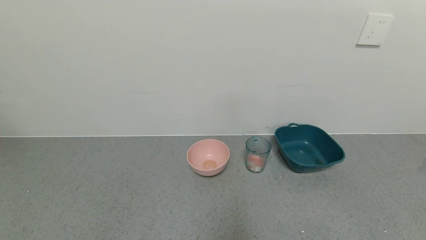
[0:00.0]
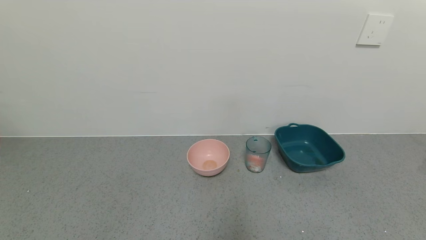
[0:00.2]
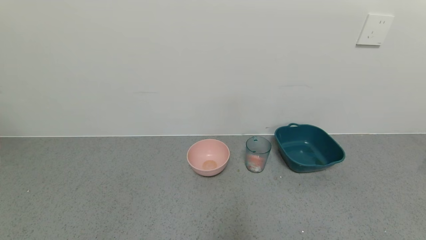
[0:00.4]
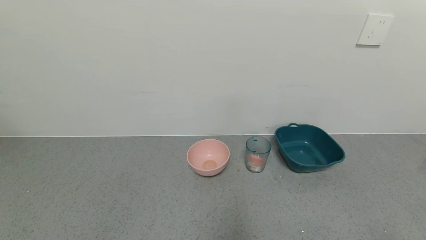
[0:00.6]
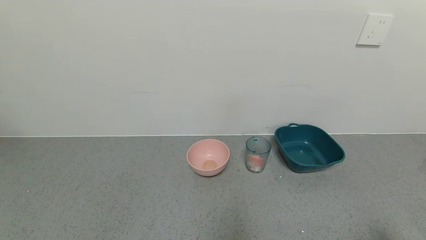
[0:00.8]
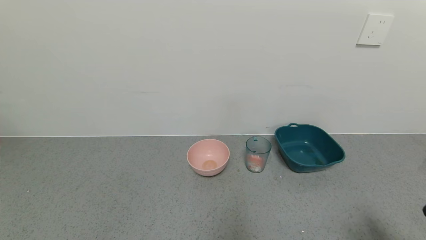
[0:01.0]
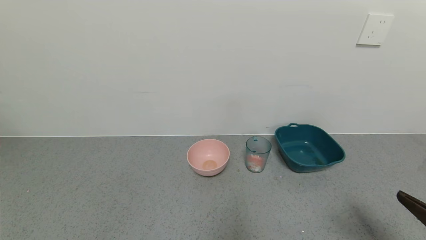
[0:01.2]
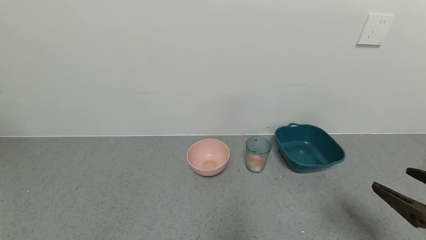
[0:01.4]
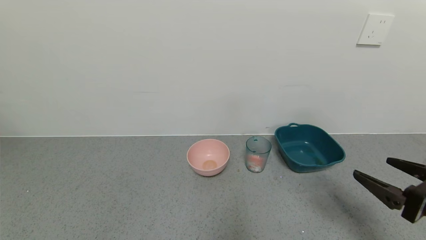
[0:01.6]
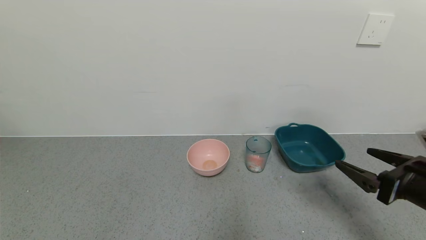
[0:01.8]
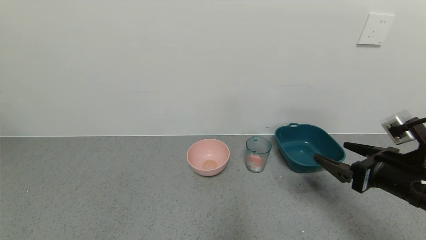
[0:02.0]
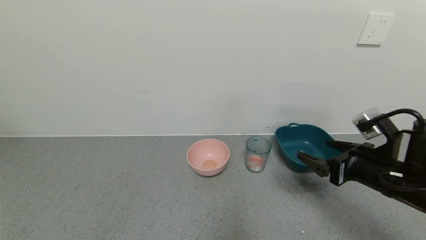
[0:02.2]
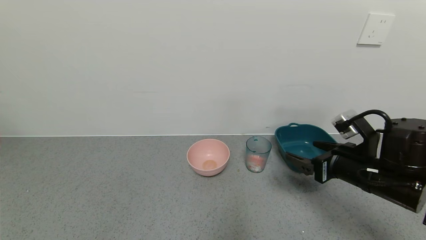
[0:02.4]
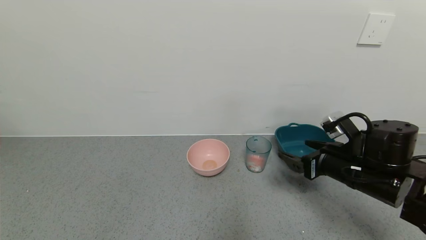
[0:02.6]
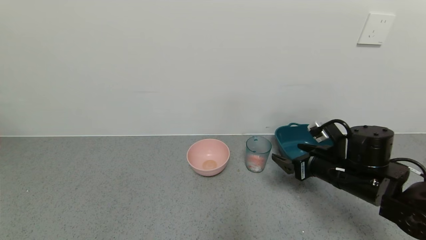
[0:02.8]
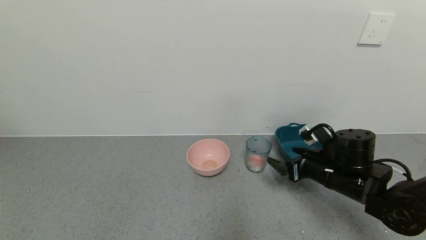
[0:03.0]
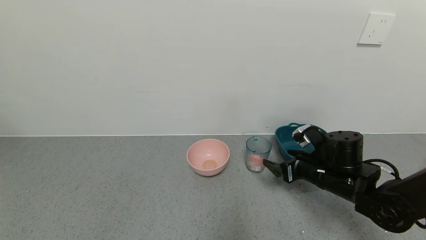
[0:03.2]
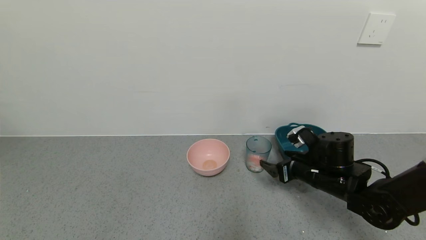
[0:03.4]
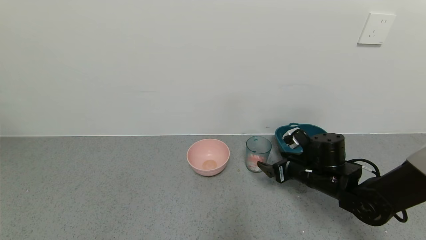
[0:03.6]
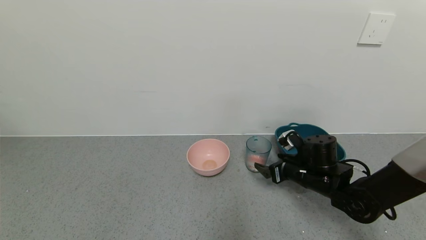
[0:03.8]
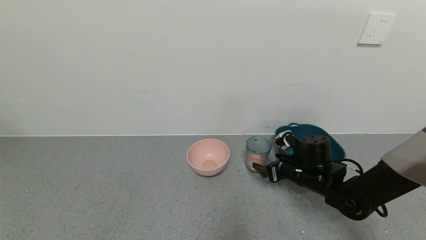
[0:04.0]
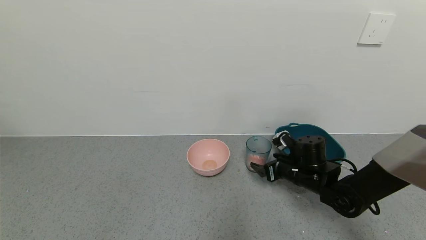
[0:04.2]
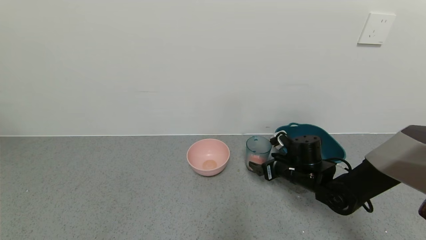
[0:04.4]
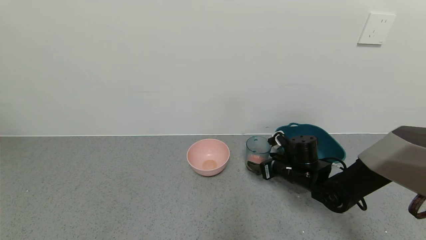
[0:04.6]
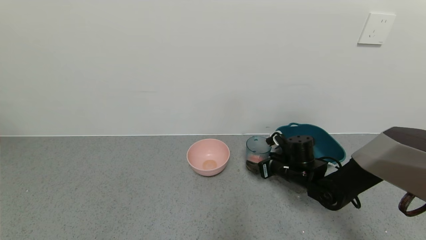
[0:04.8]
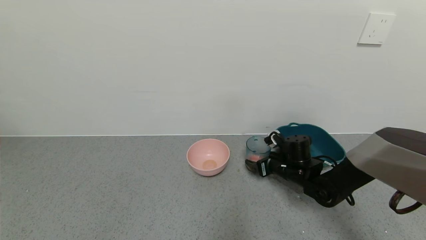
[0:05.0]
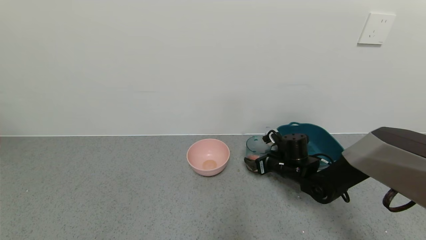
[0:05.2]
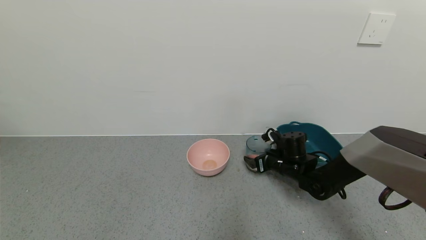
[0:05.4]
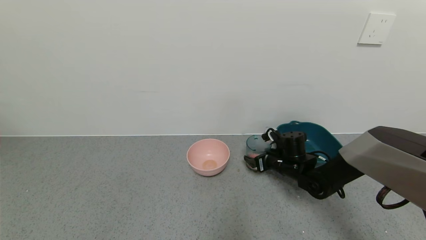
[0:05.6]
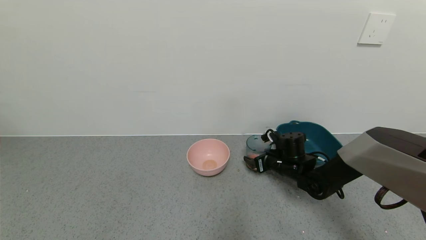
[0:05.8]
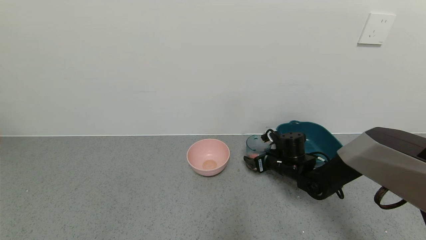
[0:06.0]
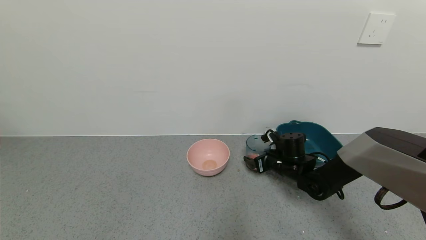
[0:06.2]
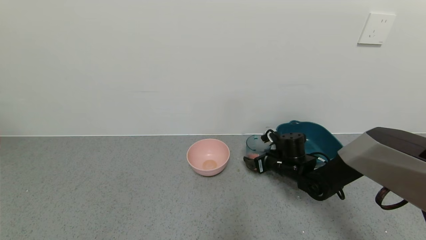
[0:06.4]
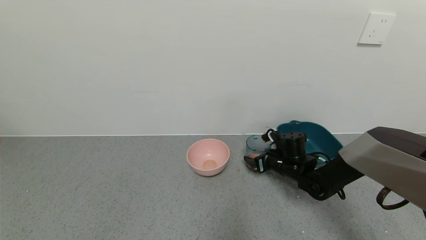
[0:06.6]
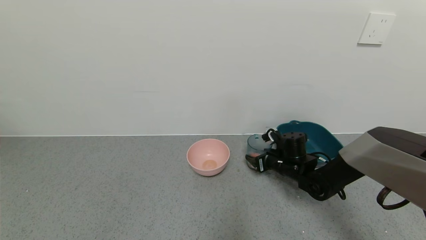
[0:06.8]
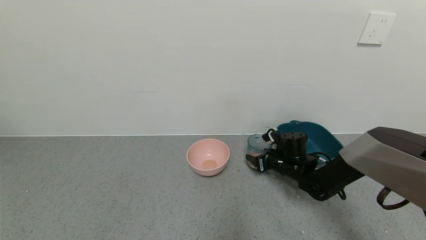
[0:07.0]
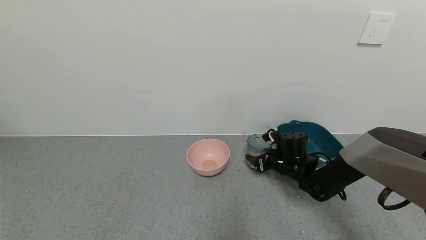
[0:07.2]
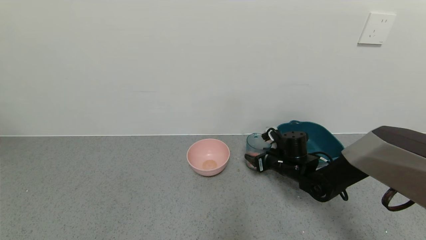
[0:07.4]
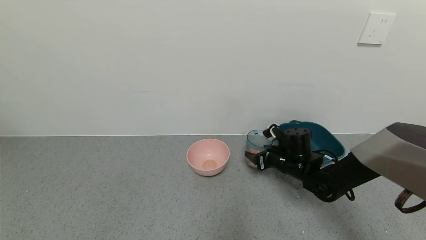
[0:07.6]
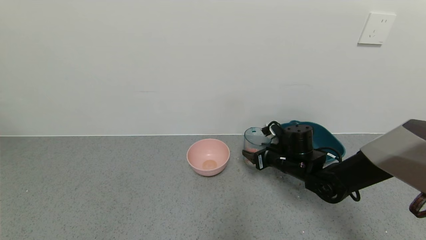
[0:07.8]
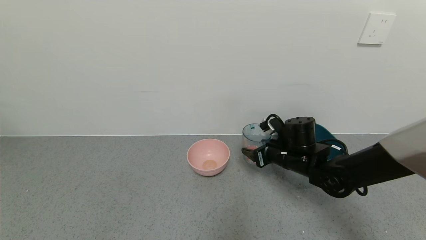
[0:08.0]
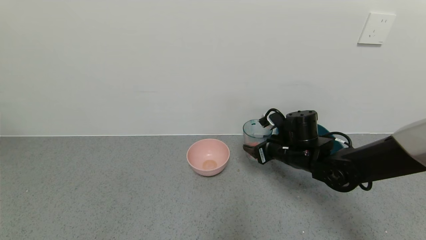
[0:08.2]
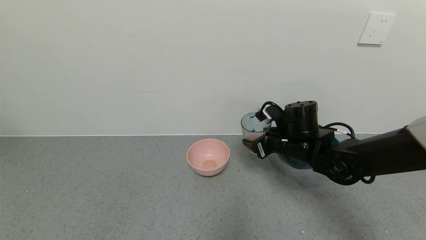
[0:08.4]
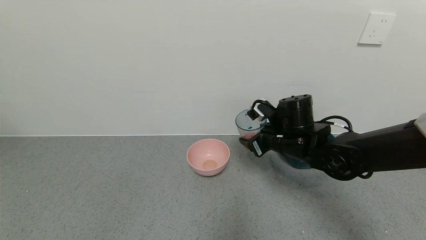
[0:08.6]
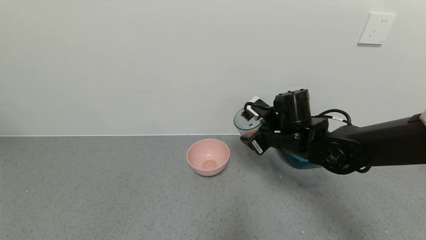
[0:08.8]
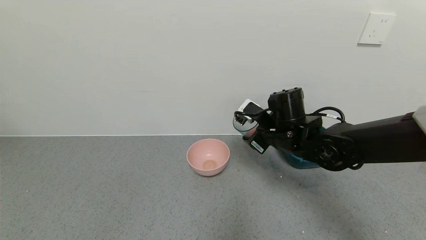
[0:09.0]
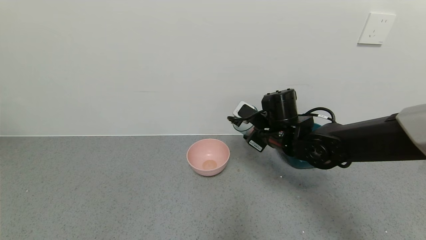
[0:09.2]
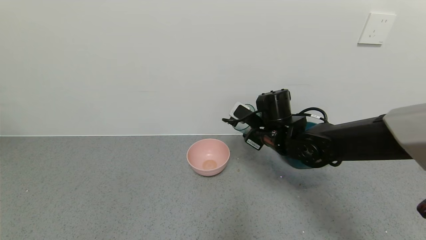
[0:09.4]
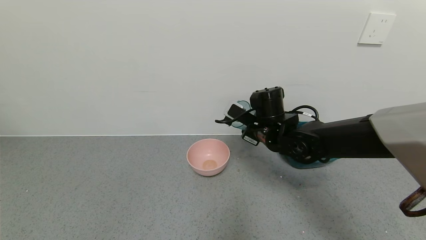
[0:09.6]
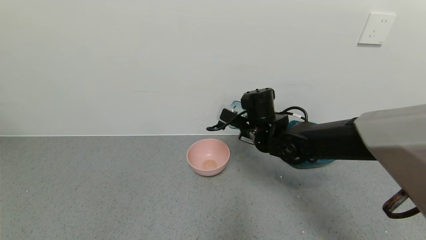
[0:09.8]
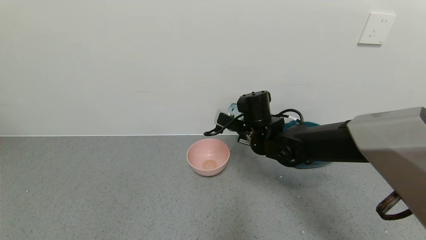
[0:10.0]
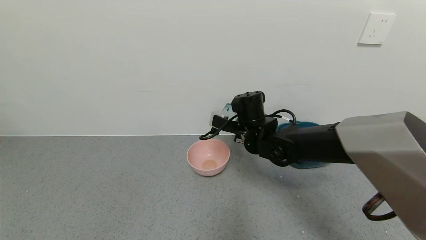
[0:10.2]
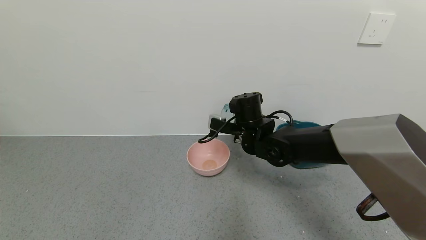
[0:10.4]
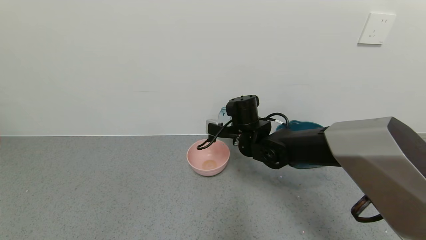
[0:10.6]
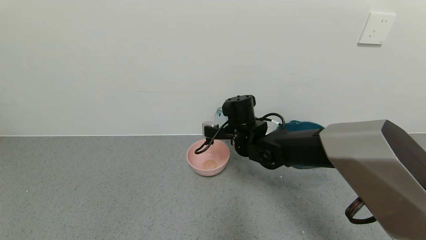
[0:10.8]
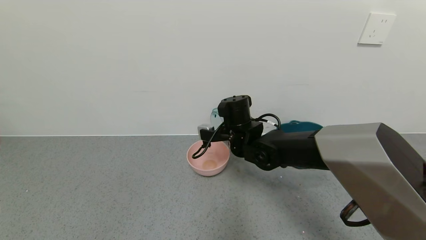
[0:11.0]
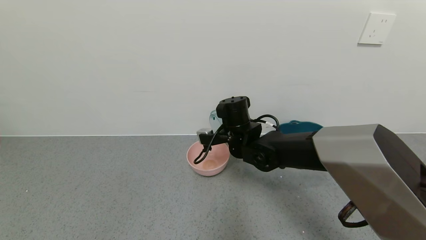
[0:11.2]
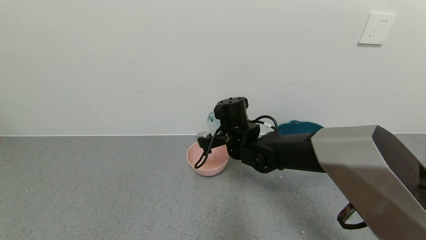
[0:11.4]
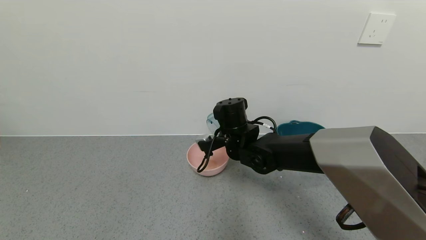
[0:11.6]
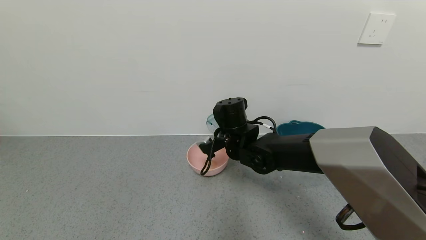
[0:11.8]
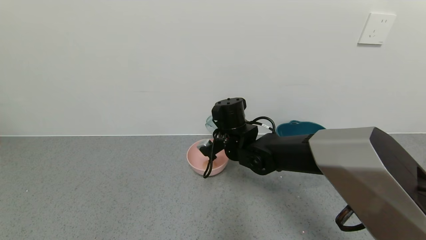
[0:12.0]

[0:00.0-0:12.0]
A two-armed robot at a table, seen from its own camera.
Task of the whole recording: use a gripper to pick up the cup and pour the solid into a bowl or tray.
Step, 0:00.0 to 0:06.8: Grasp the glass of shrimp with the right gripper.
0:00.0 to 0:01.6: The right gripper shifts roughly 20 cm forward and upward.
0:01.6 to 0:03.0: The right gripper is displaced forward, to the left and downward by approximately 20 cm.
0:03.0 to 0:04.4: The right gripper travels forward and downward by roughly 10 cm.
0:04.4 to 0:06.0: The right gripper moves roughly 5 cm.
0:06.0 to 0:07.6: The right gripper closes up.
0:07.6 to 0:09.0: The right gripper travels upward by about 10 cm.
0:09.0 to 0:10.4: The right gripper goes approximately 5 cm to the left.

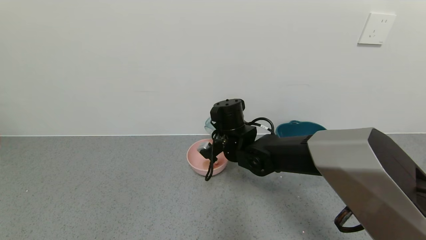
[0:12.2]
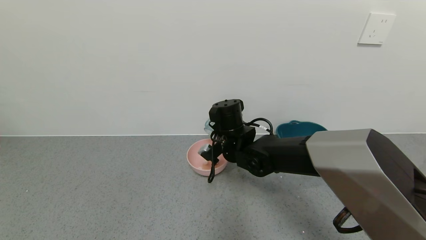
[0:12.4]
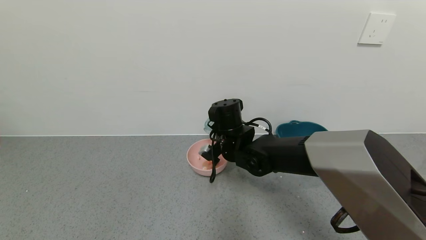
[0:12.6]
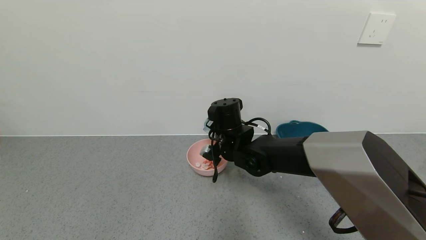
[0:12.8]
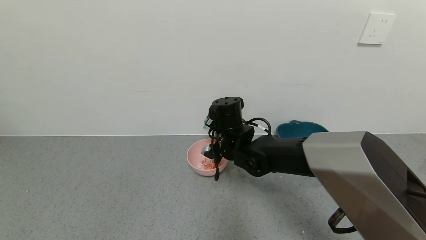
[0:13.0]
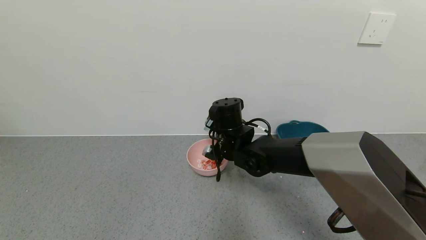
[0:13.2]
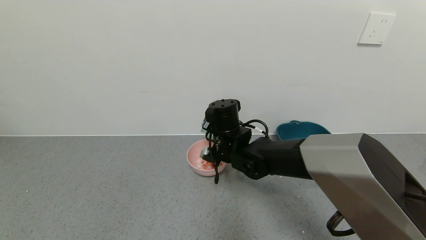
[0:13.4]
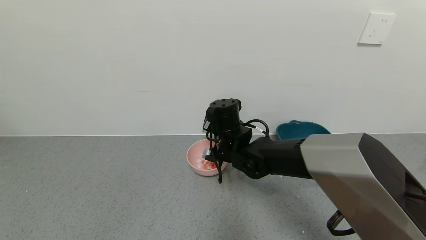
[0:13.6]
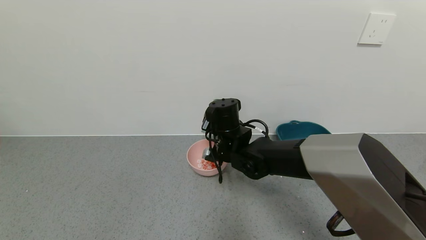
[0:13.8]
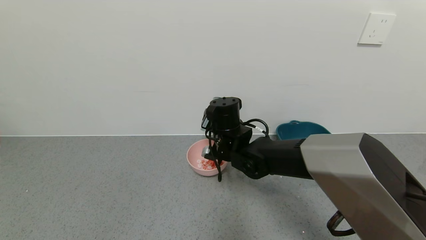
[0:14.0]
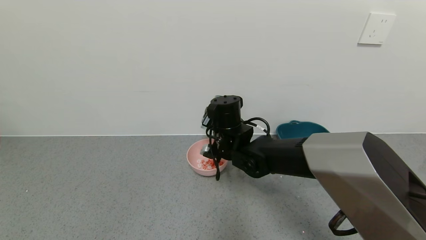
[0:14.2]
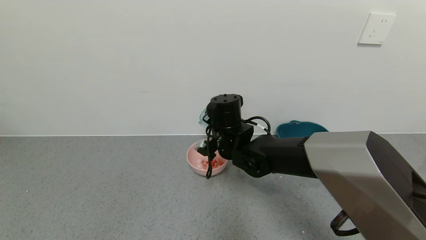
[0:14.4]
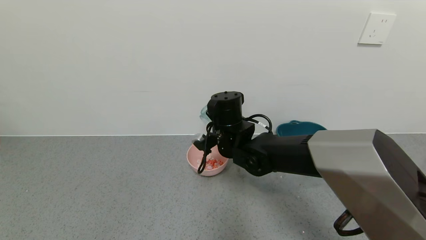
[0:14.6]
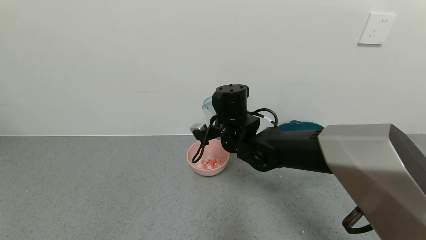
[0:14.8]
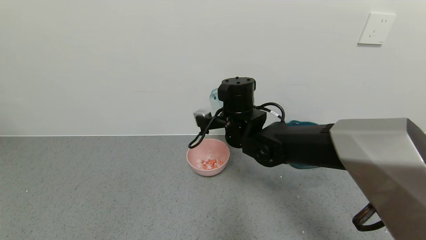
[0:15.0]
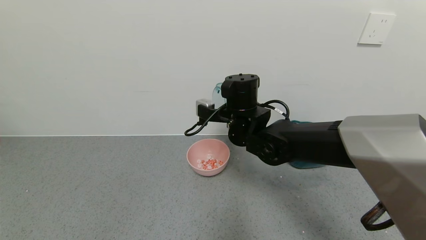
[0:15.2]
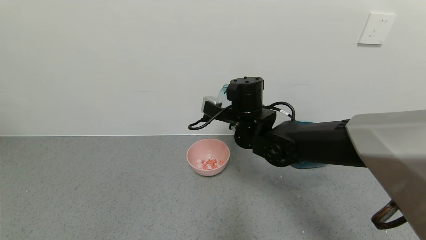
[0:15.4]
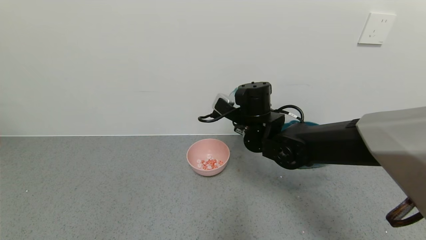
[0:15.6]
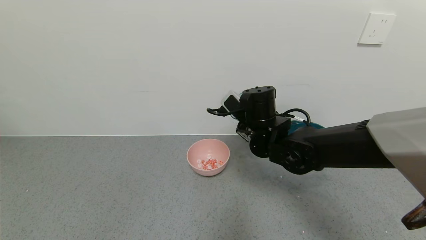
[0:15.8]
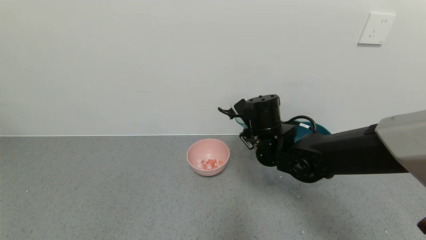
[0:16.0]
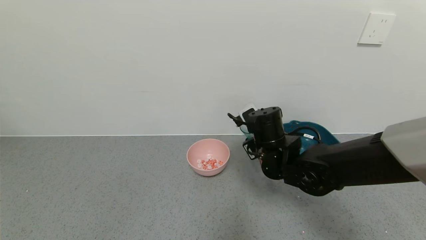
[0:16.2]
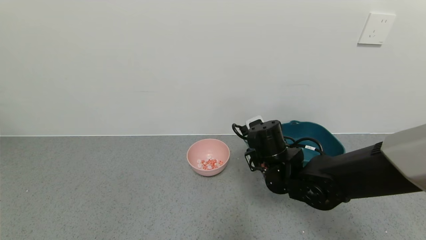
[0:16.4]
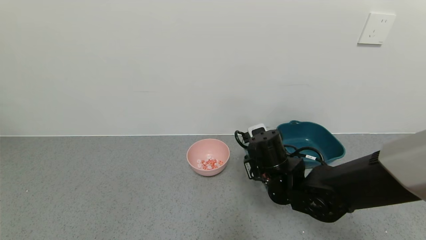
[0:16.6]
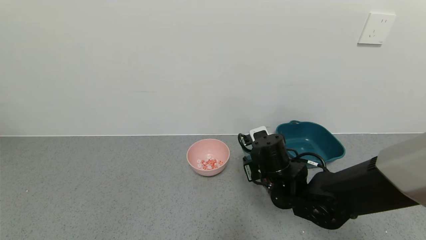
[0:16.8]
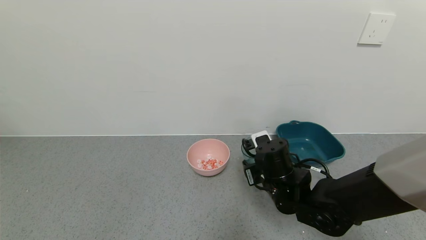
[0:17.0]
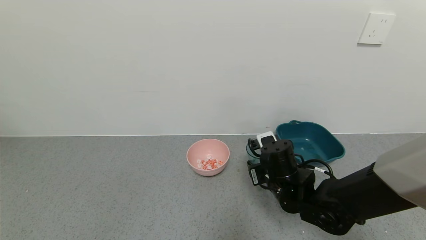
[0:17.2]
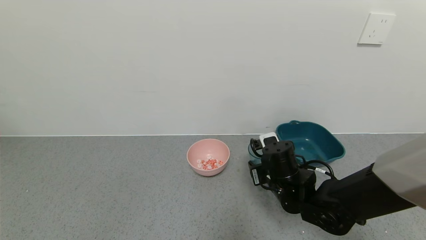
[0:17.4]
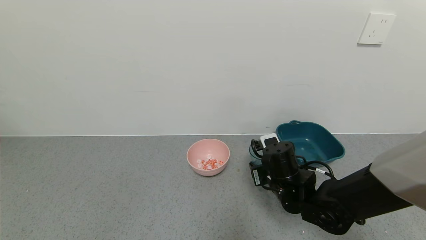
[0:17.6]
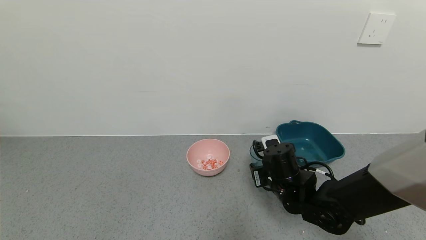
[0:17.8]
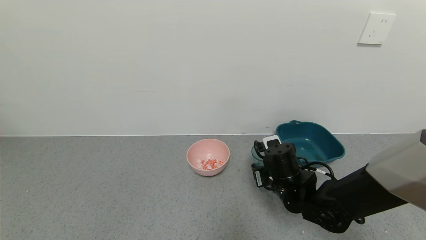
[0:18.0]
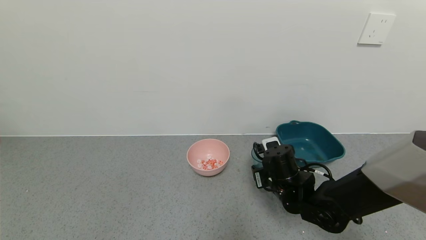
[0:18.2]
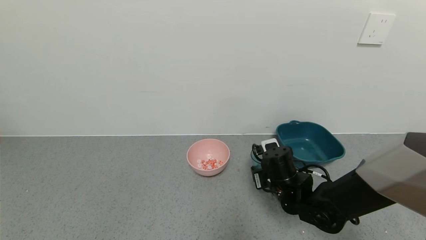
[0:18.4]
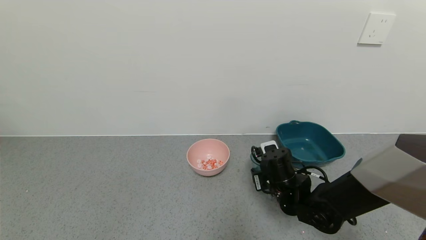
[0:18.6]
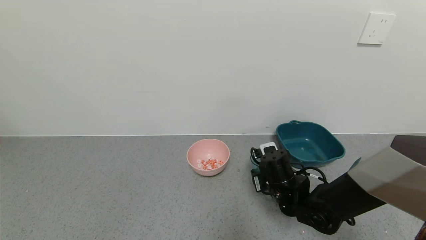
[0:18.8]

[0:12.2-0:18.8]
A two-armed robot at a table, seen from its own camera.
Task of the whole recording: use a gripper to pick up the cup and pour the solid into a bowl or tray.
Step, 0:12.2 to 0:15.6: Pour the shrimp beans into the green bowl with the right gripper.
0:13.8 to 0:15.4: The right gripper ends up roughly 5 cm from where it was.
0:15.4 to 0:17.2: The right gripper heads downward, backward and to the right, covering about 15 cm.
0:17.2 to 0:18.8: The grippers stay close to where they were, moving slightly.
